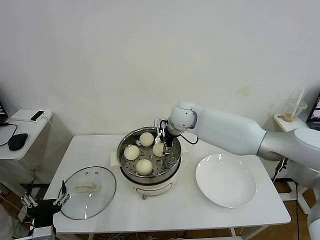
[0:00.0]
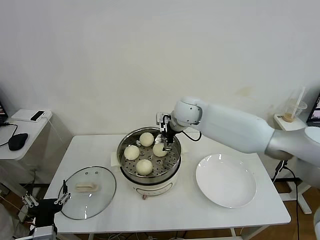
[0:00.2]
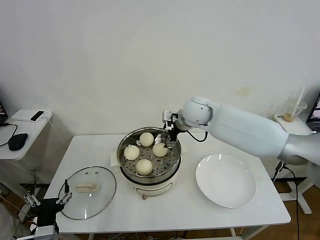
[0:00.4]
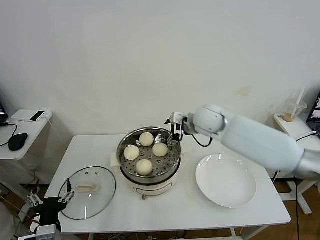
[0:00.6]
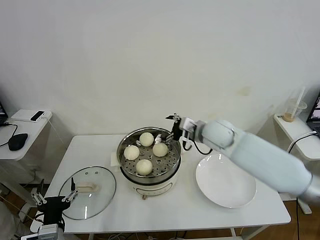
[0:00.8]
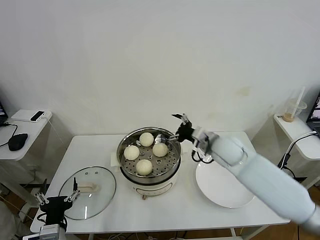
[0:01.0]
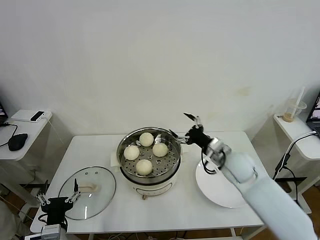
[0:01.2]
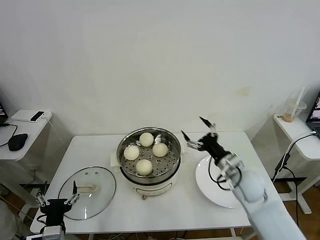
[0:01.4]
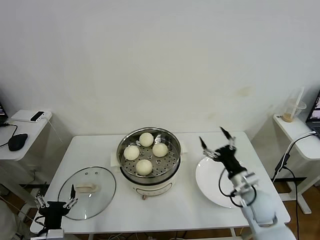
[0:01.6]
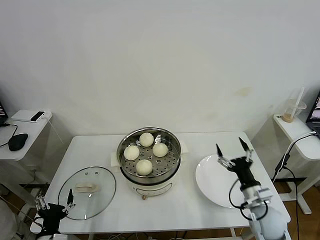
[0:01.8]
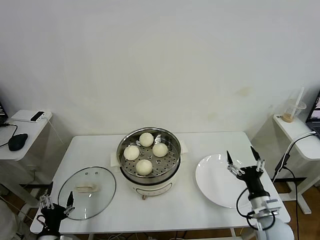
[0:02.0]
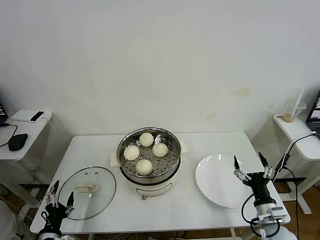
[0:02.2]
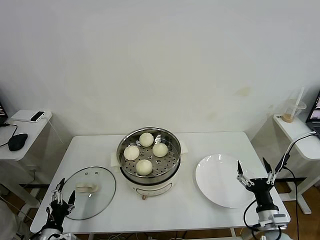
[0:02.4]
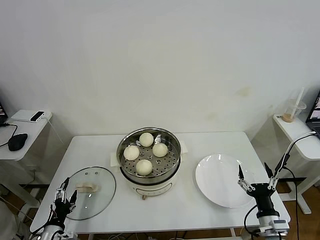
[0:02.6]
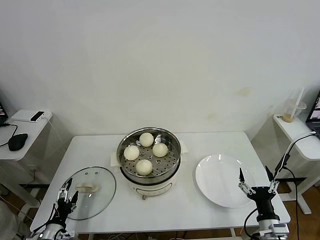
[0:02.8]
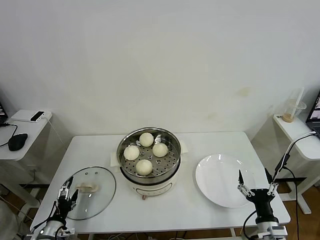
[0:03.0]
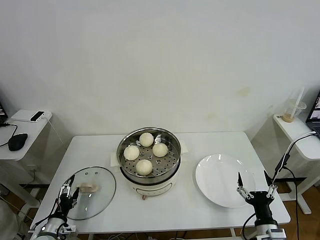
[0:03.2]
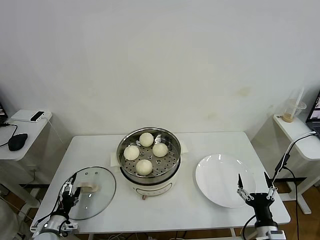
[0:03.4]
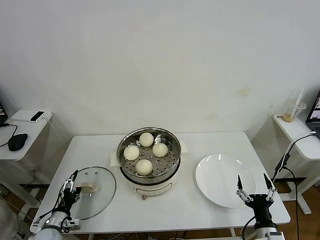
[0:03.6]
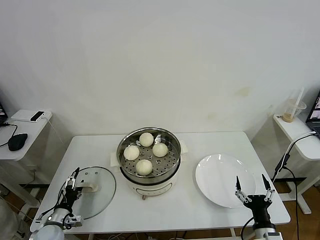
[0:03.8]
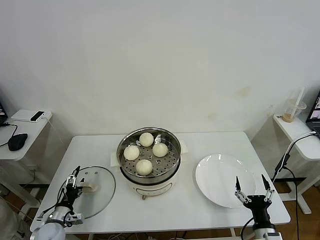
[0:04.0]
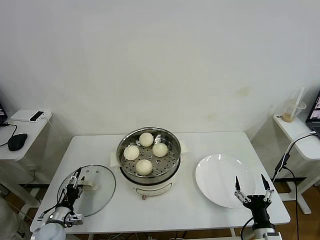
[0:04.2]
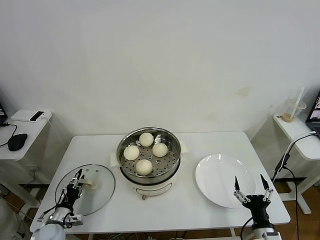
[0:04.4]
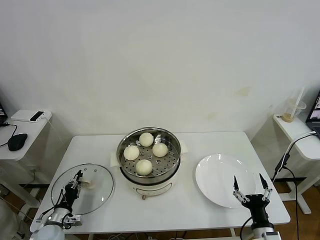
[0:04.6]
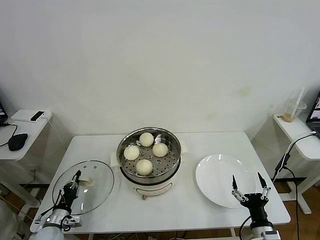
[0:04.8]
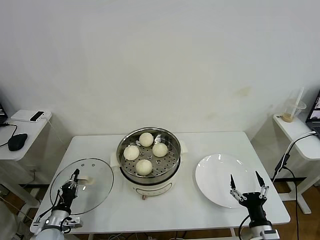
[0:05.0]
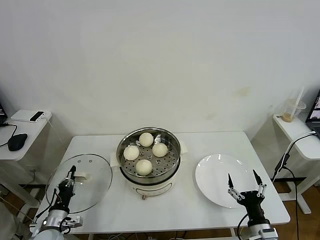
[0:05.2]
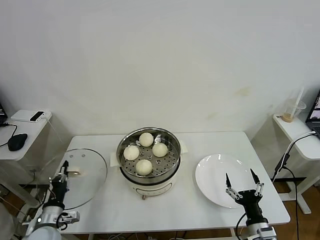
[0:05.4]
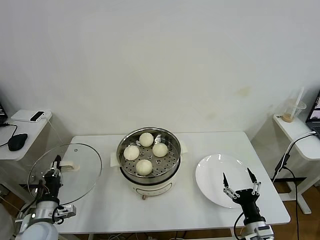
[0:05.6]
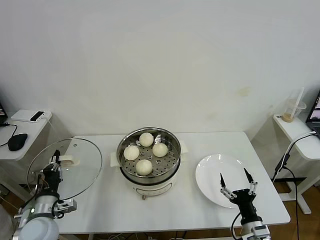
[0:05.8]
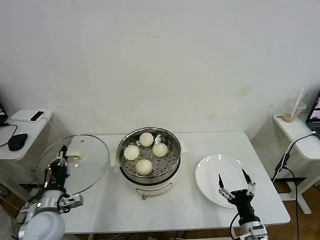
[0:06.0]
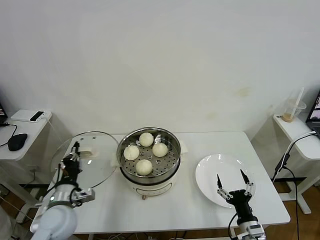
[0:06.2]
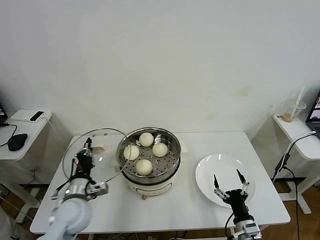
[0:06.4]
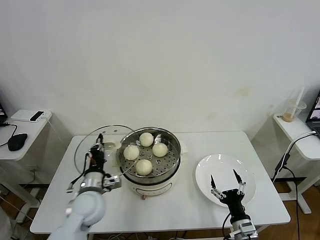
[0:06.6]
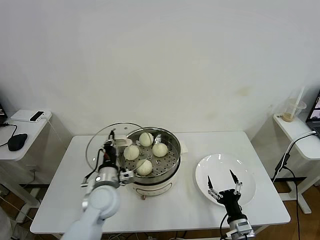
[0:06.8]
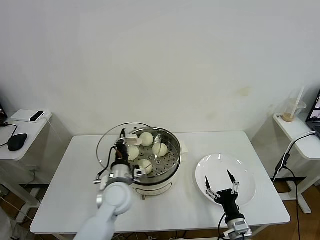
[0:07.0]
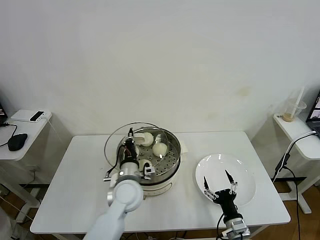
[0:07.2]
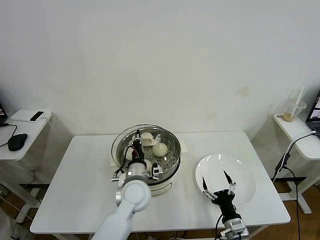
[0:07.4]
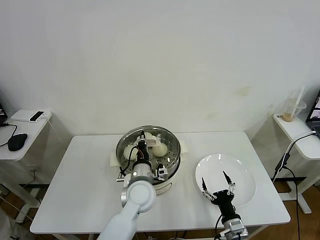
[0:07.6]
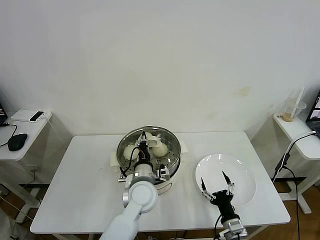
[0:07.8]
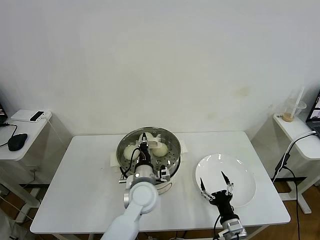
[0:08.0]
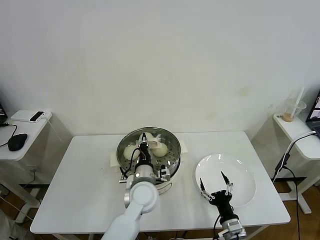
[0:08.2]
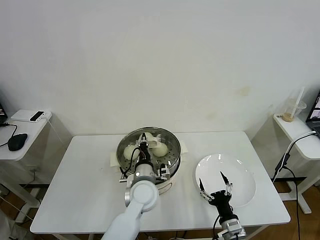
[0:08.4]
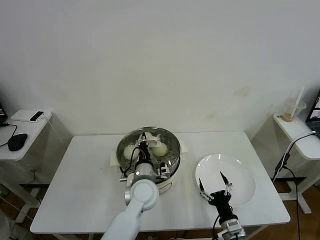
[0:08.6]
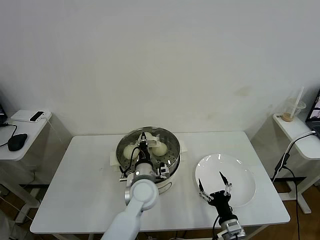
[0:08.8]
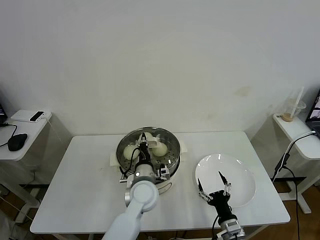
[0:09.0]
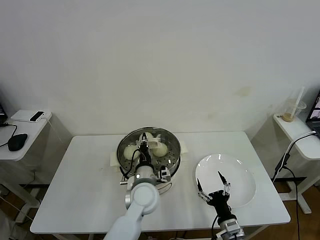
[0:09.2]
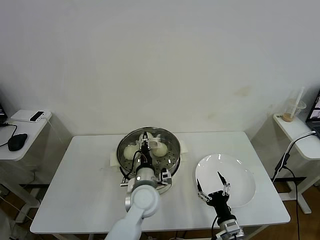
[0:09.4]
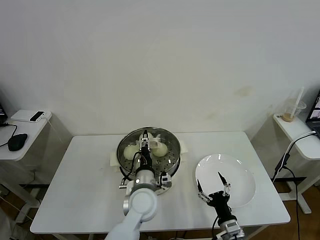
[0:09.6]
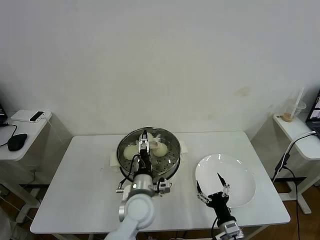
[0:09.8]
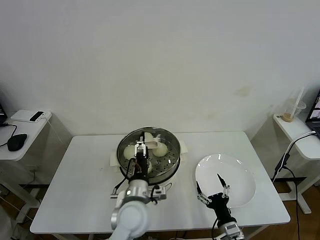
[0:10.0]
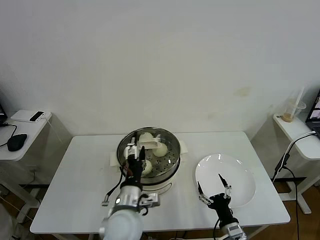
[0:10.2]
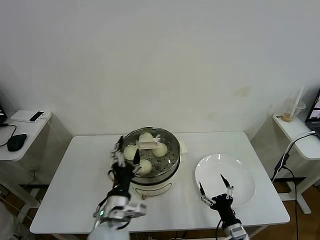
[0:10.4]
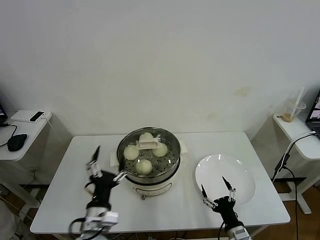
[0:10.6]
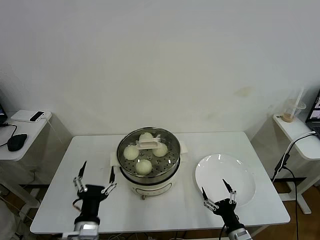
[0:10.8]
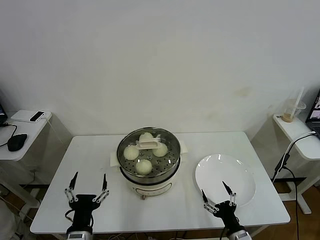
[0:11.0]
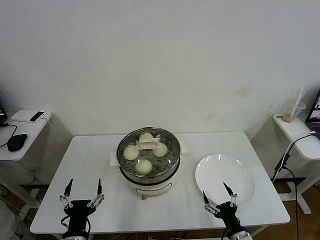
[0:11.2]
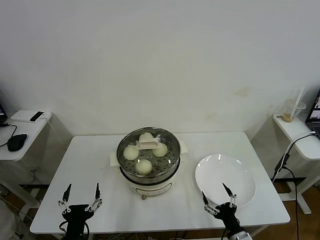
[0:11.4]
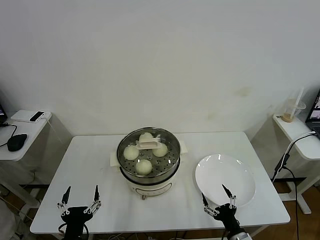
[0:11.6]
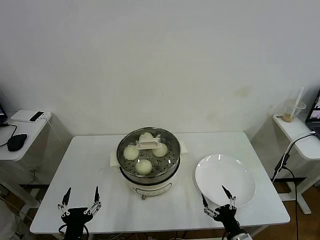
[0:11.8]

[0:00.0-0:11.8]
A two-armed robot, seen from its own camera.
Task of the whole recording: take steamed baozi put them in steamer then cover it.
Step, 0:00.2 to 0:04.8: Grasp the pot lid with left gripper.
Step, 0:05.2 to 0:10.0: Place the pot lid on the steamer with left gripper.
0:00.0 to 0:01.4: The right gripper is displaced backward, to the right and downward by approximately 30 cm.
0:01.4 to 0:03.0: The right gripper shifts roughly 25 cm backward and downward; the left gripper is displaced downward and to the left by roughly 15 cm.
0:03.0 to 0:04.4: The left gripper moves forward, approximately 5 cm, and closes its fingers.
0:04.4 to 0:06.0: The left gripper travels upward by roughly 15 cm, and closes.
0:06.0 to 0:07.4: The left gripper goes about 25 cm to the right and forward; the right gripper changes place by roughly 5 cm.
0:07.4 to 0:08.8: The grippers make only small movements.
0:08.8 to 0:10.4: The left gripper shifts some 15 cm backward and to the left, and opens up.
0:10.4 to 0:11.8: The left gripper heads to the left, backward and downward, covering some 20 cm.
